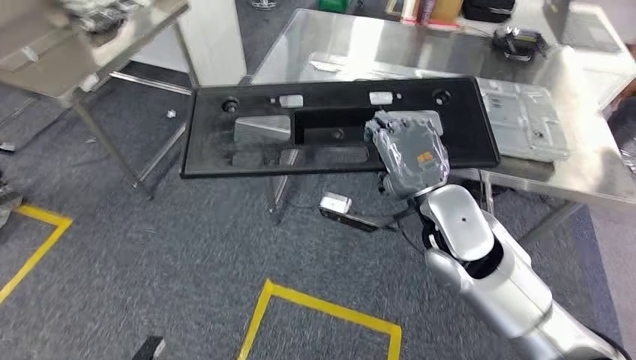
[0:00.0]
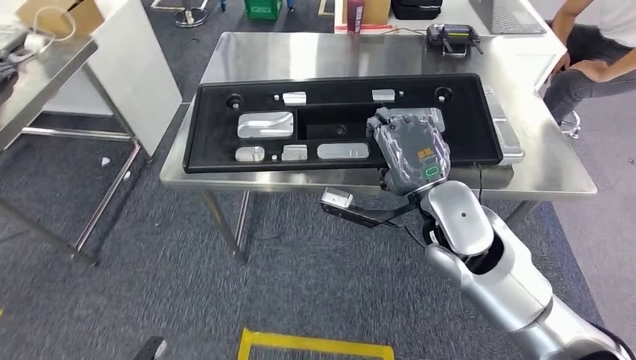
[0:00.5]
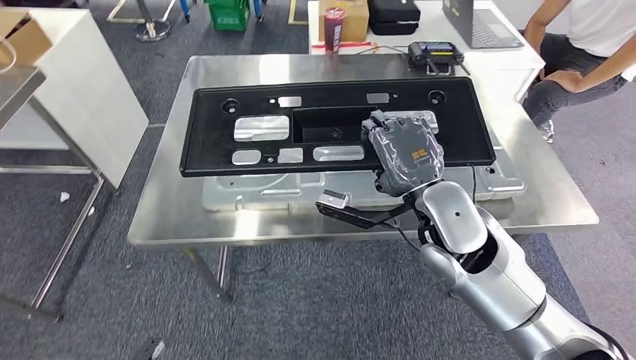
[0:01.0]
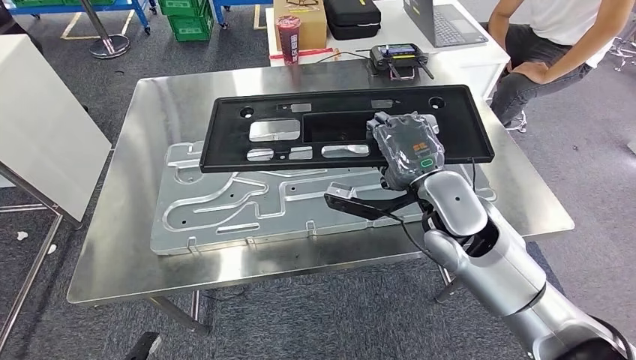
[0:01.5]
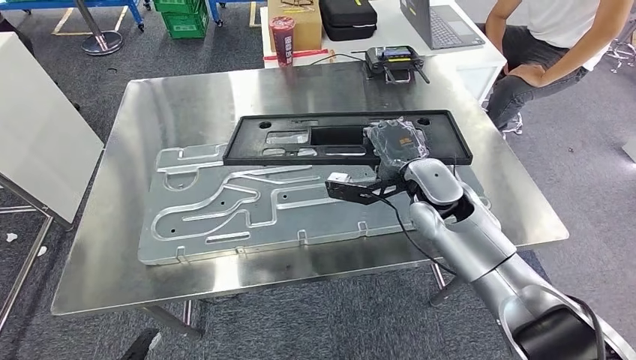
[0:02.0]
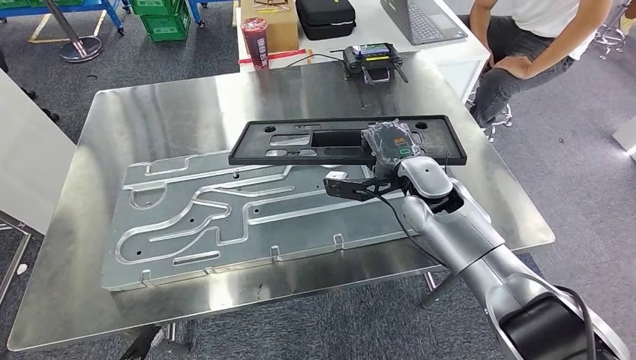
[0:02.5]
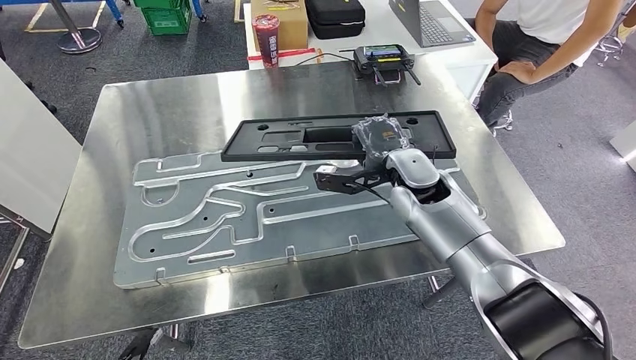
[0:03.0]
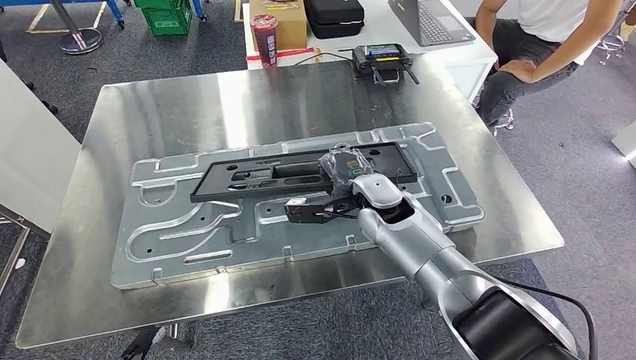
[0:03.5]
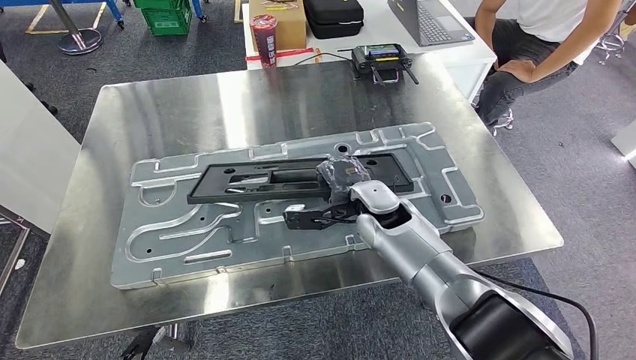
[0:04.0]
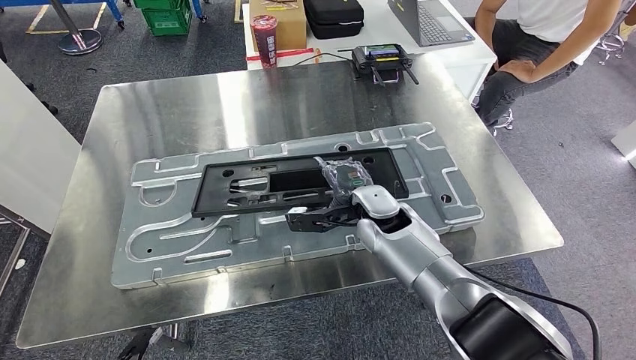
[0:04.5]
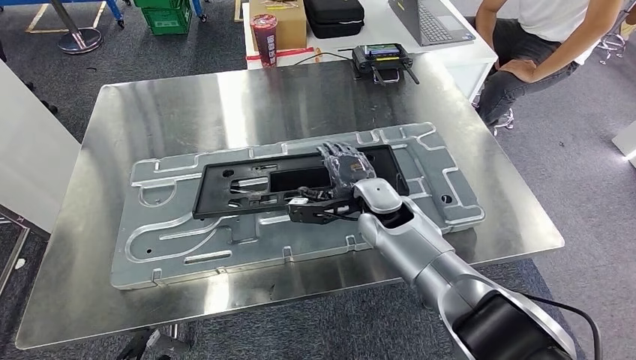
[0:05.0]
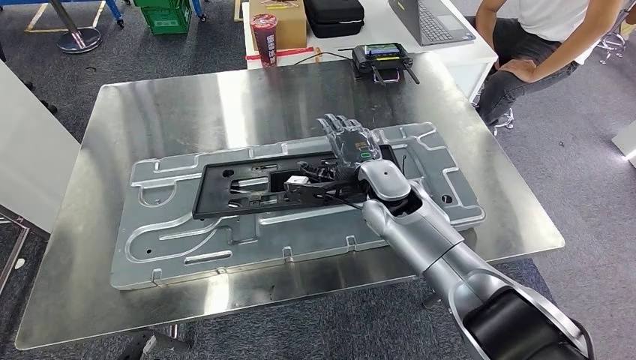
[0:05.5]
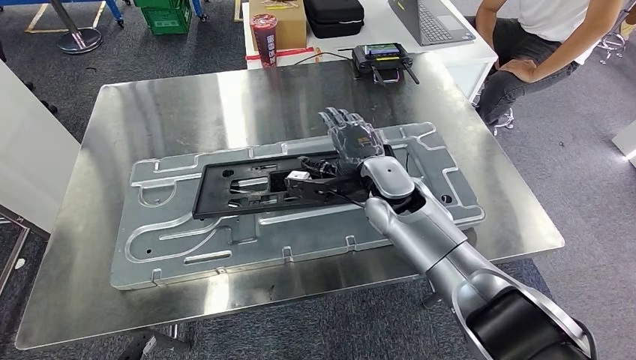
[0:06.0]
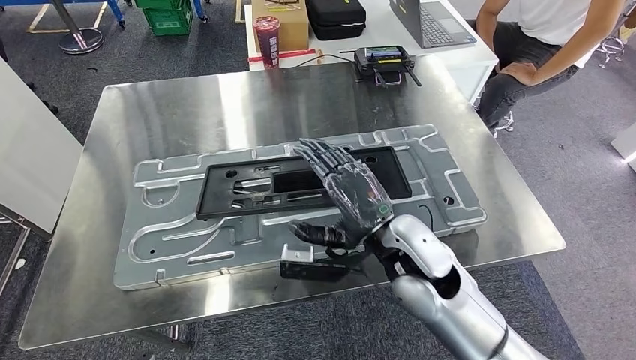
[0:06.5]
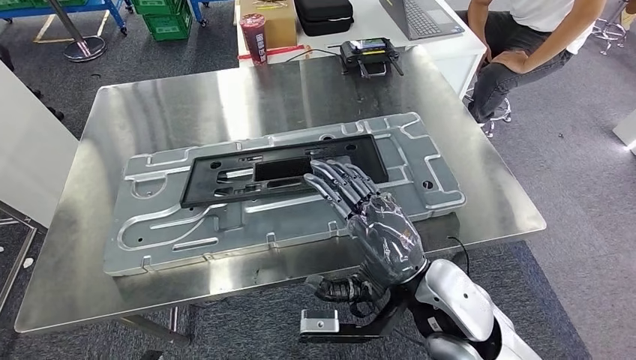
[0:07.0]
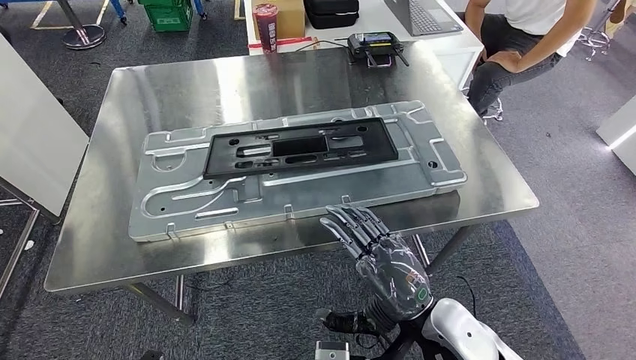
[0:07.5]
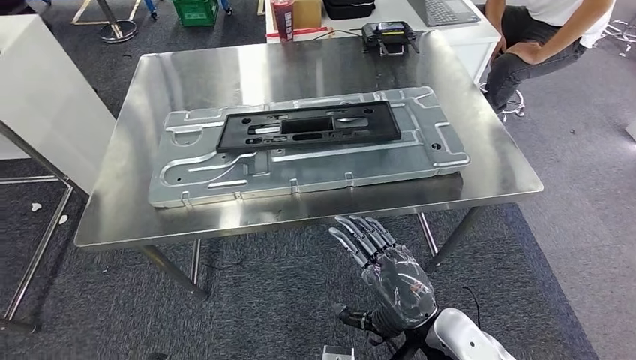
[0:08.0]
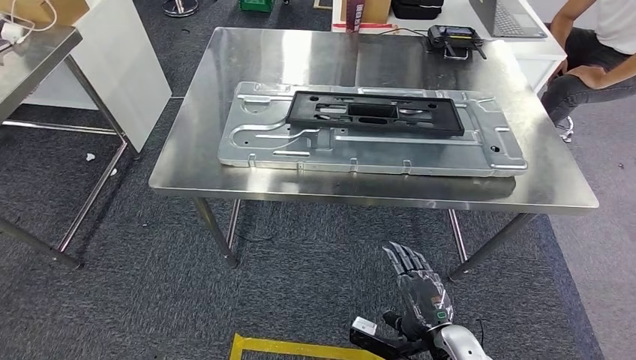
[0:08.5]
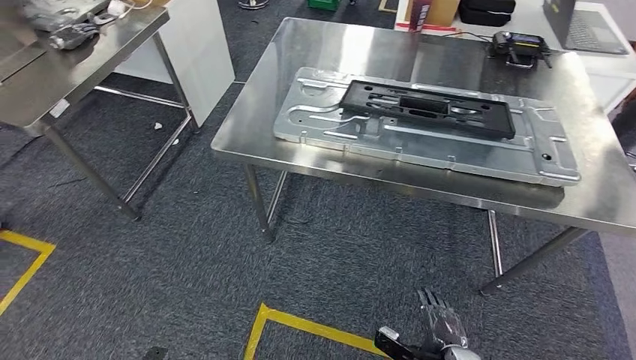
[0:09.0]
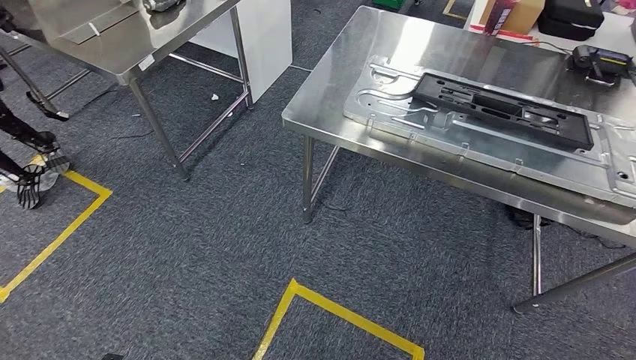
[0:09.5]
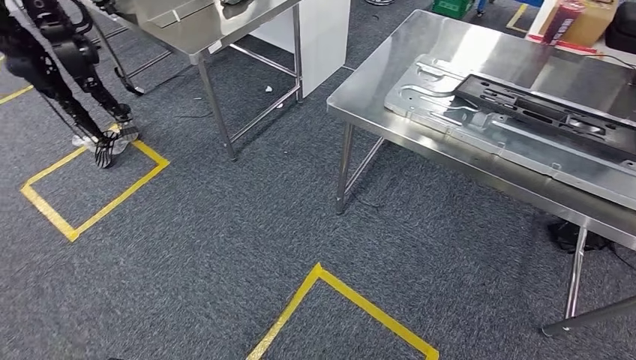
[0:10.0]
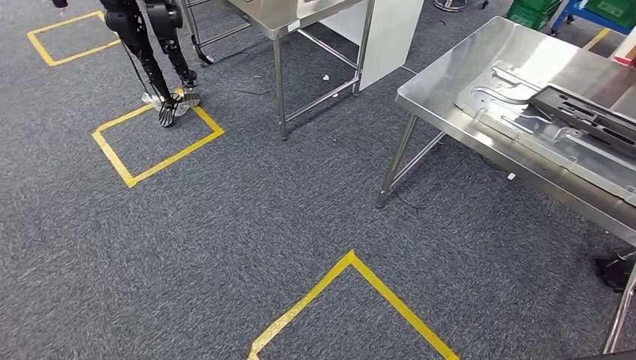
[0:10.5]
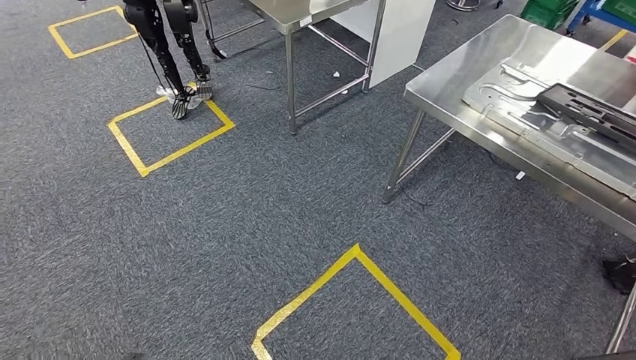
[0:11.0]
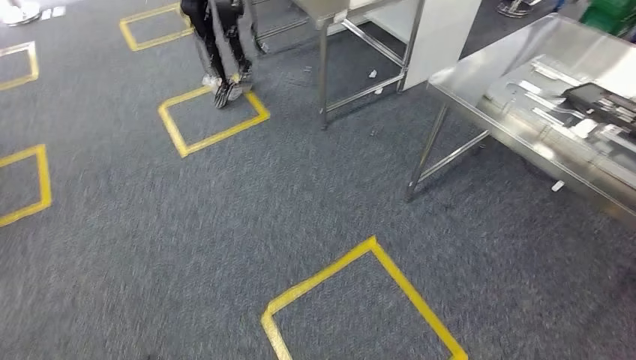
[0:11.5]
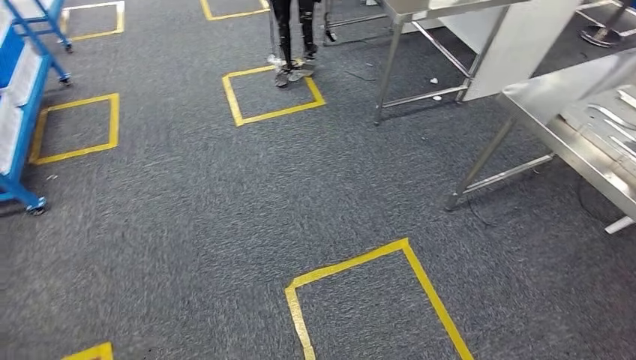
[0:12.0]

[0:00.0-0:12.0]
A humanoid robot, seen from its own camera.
Step, 0:02.0 to 0:07.0: Insert the large material into the corresponding slot on the workbench.
0:04.0 to 0:06.0: The right hand heads upward, covering approximately 5 cm.

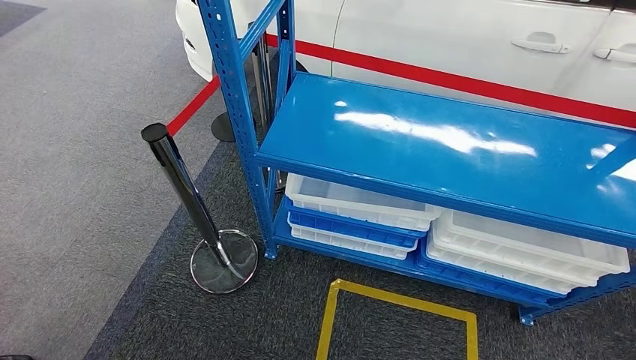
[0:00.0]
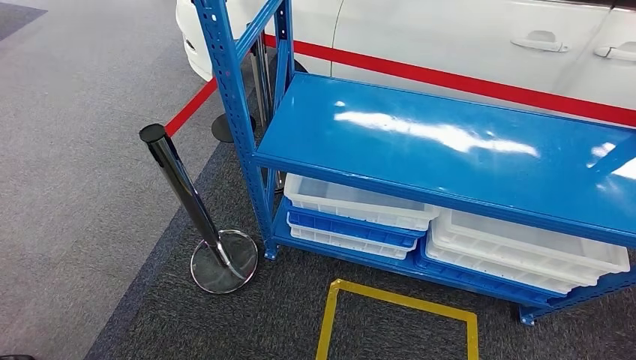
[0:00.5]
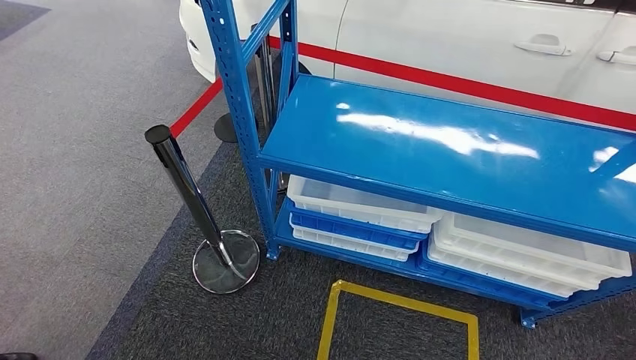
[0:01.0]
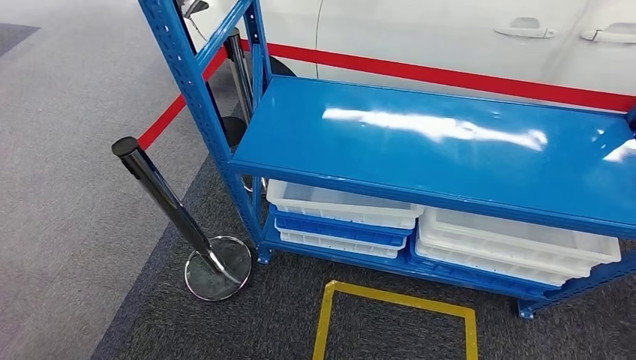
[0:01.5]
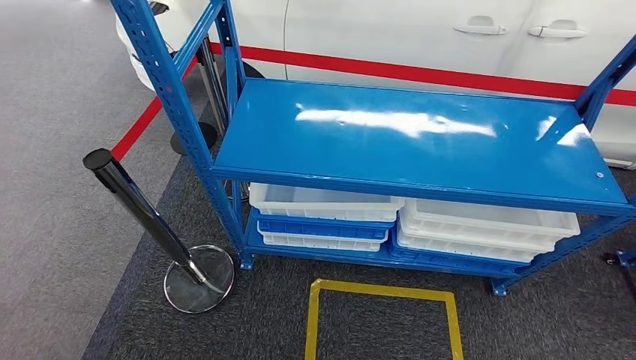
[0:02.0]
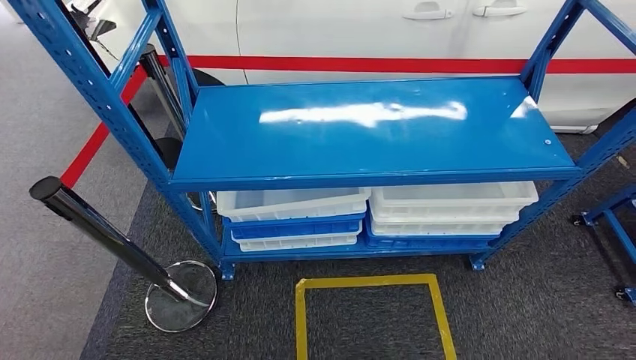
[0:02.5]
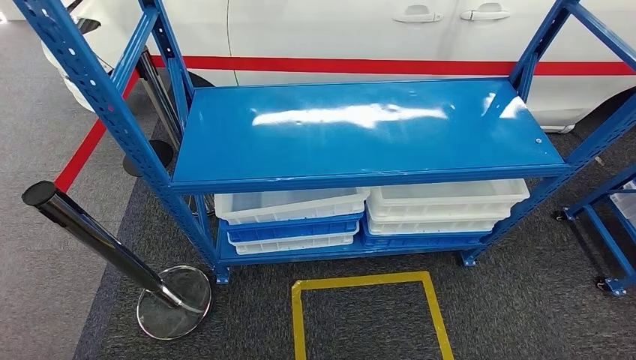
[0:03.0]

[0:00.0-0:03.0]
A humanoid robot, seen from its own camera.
Step, 0:00.0 to 0:03.0: Move to the initial position of the shelf.
